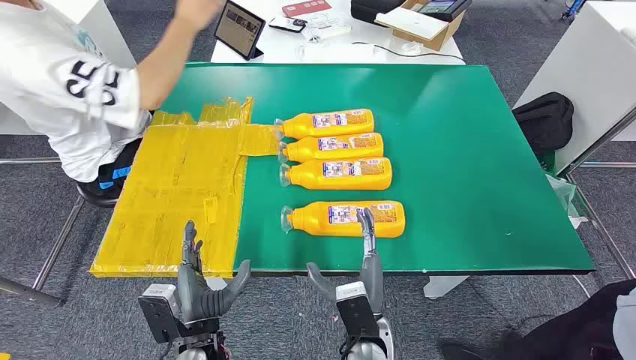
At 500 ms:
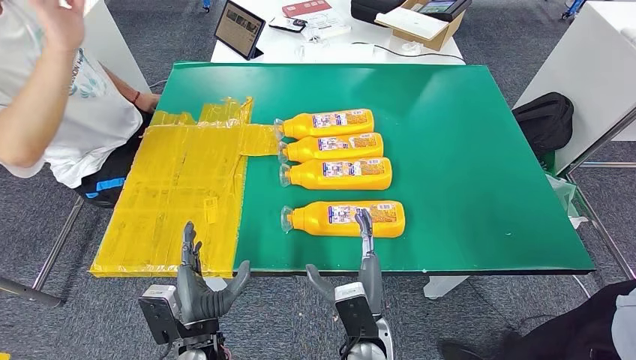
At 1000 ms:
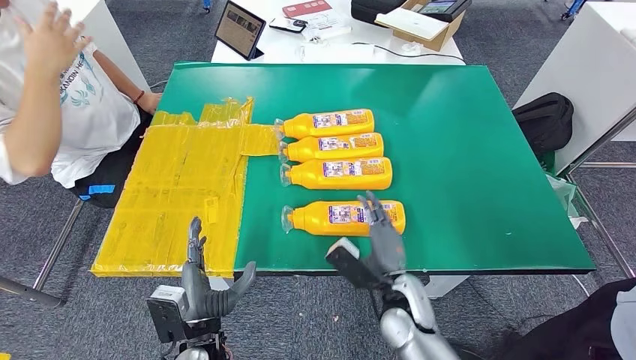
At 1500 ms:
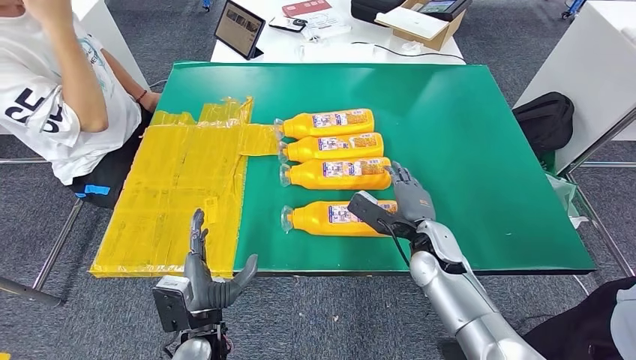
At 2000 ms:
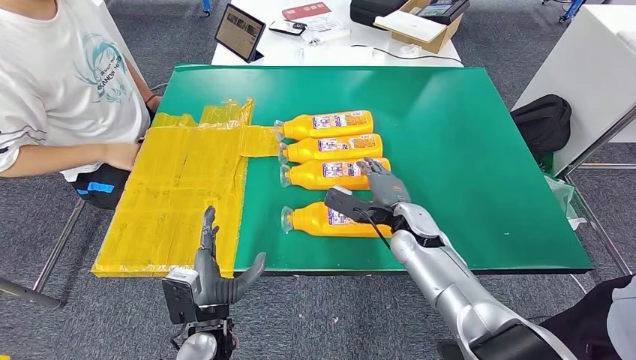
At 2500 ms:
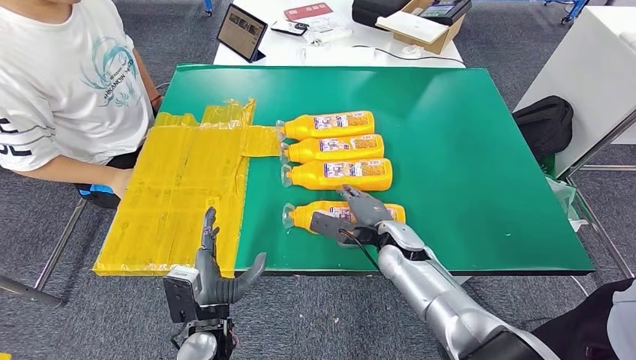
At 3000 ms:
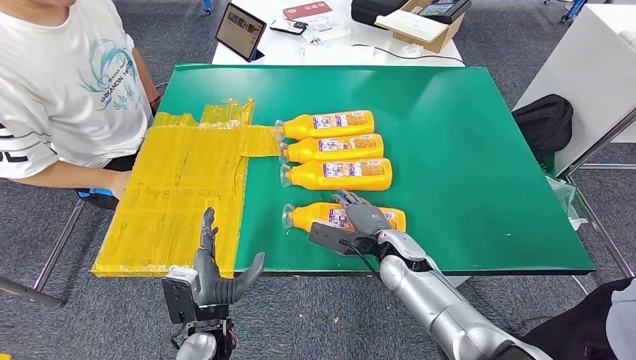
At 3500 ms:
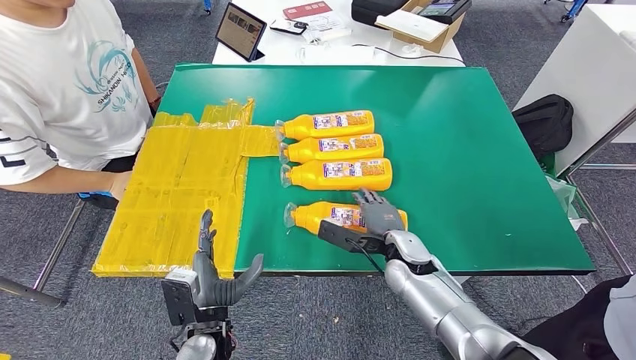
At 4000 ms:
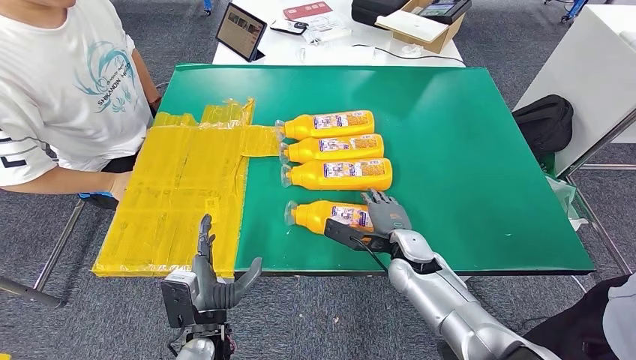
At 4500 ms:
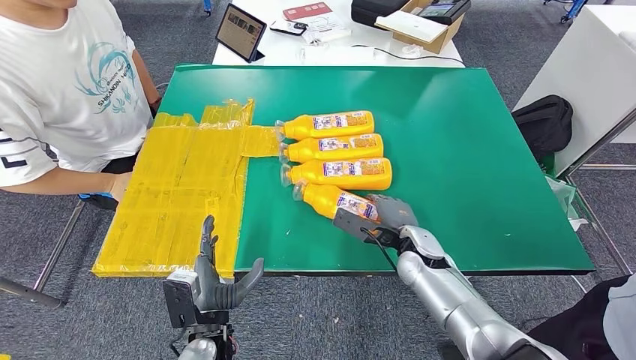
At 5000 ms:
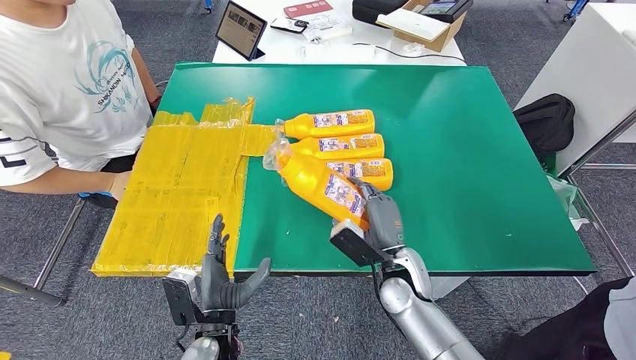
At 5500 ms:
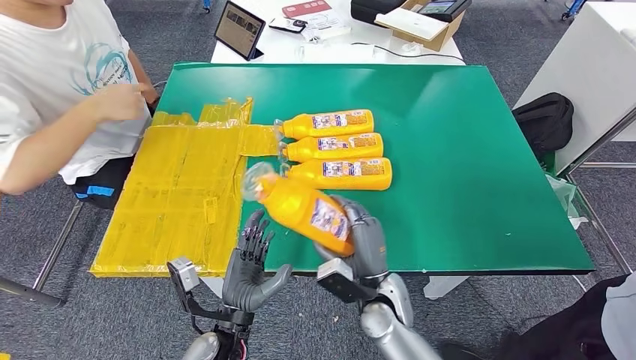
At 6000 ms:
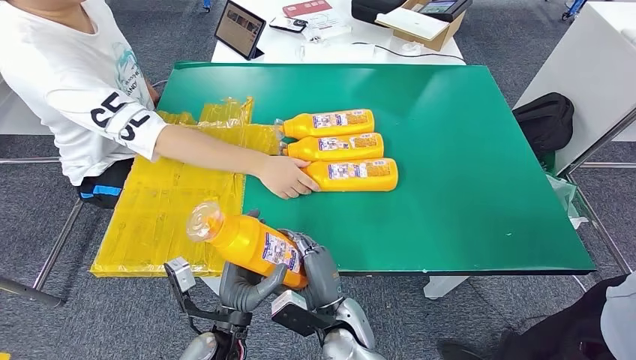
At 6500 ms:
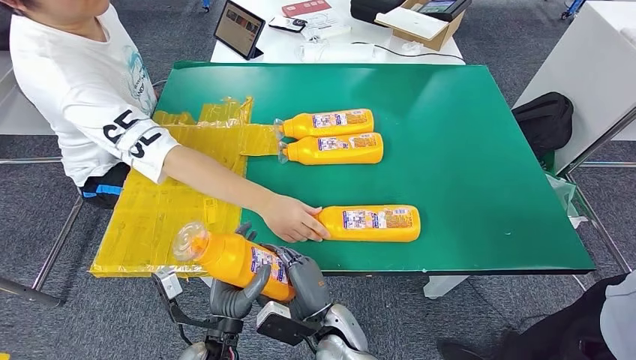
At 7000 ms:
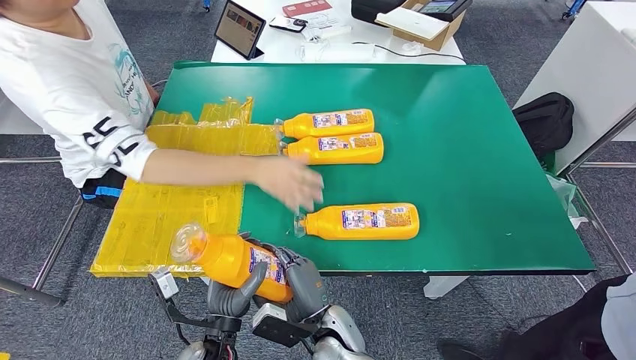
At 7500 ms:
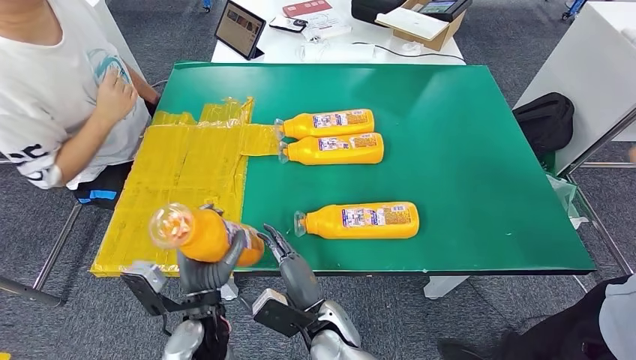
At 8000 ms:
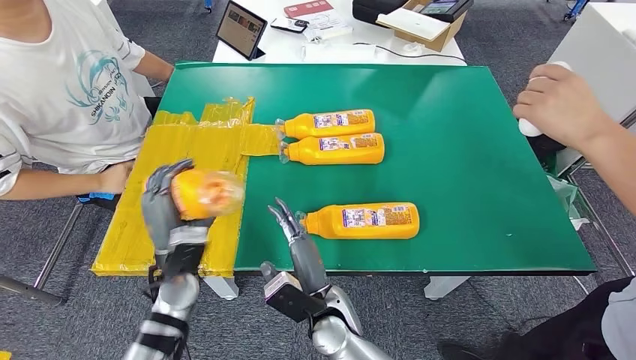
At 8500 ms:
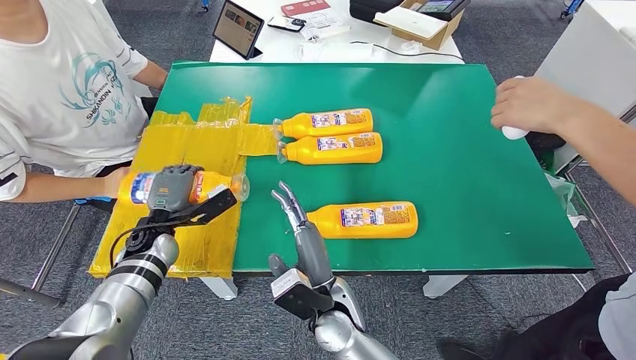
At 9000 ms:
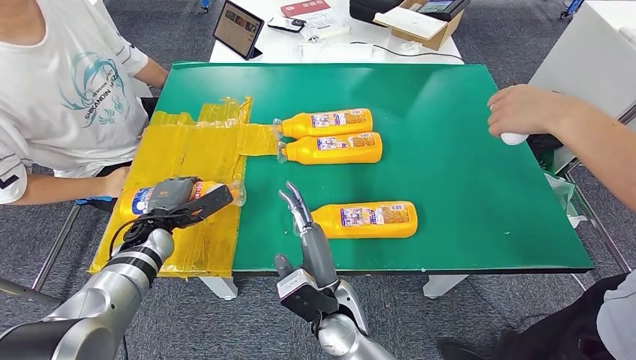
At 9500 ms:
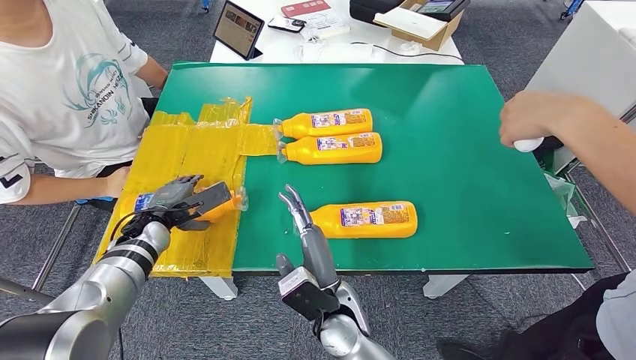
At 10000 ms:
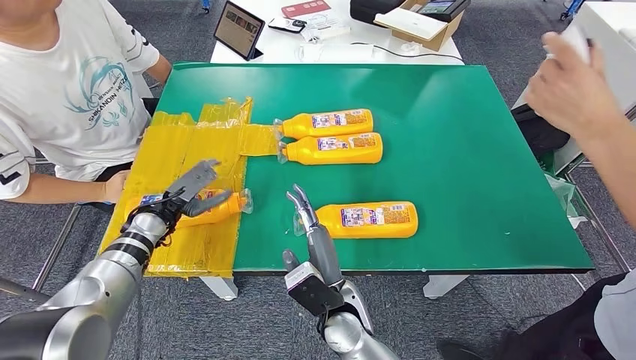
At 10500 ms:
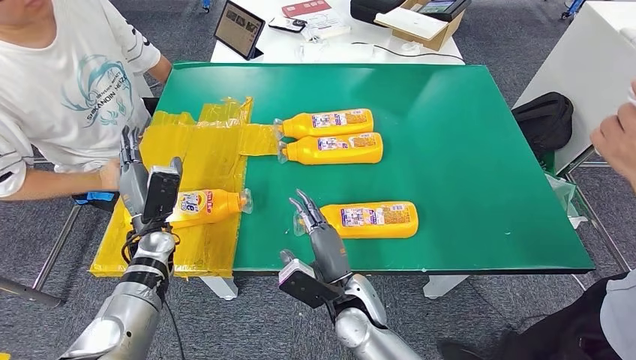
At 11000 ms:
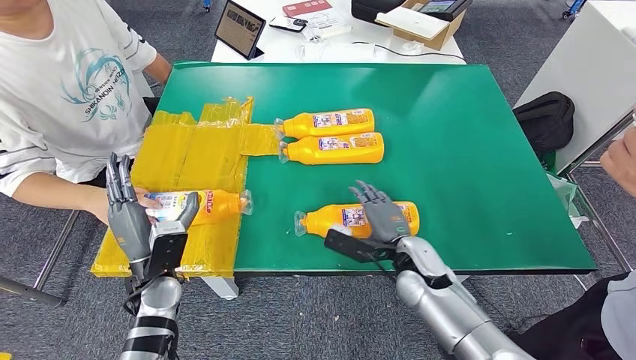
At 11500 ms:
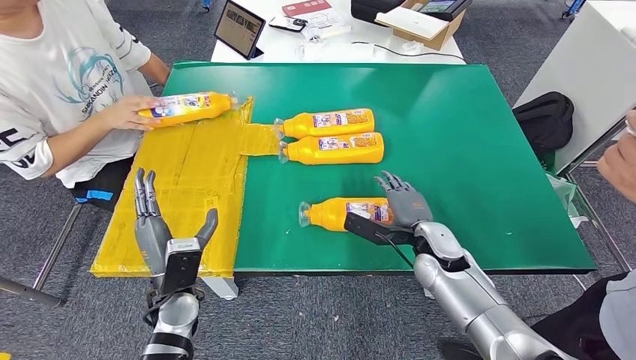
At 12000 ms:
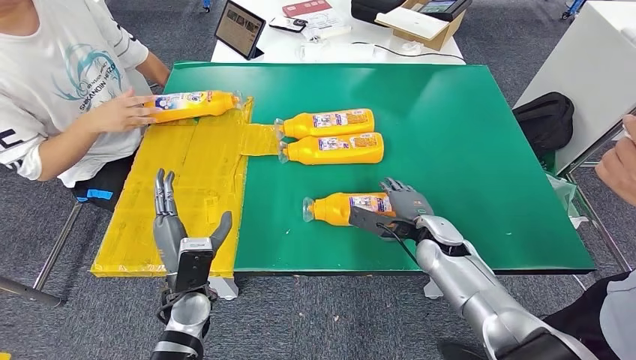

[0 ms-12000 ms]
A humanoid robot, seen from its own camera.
Step, 0 ms to 6000 ms: Take the bottle from the table.
Step, 6500 ms to 9500 ms: Flip the bottle to face forward.
2000 ms to 4000 ms: The hands move only a little.

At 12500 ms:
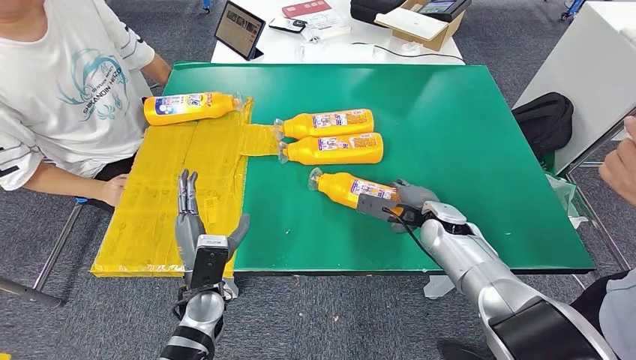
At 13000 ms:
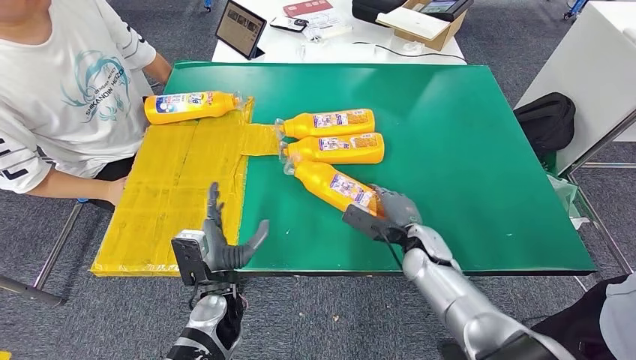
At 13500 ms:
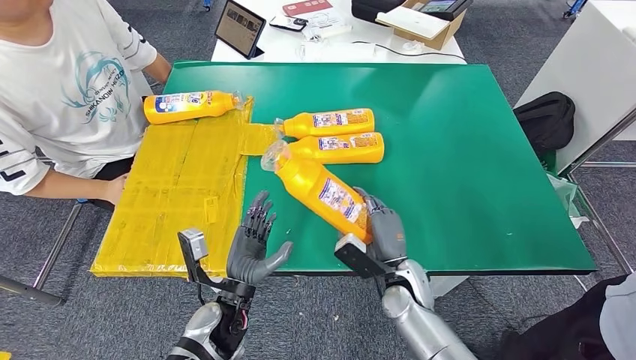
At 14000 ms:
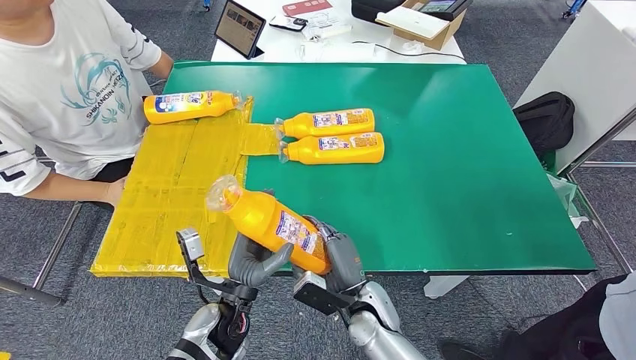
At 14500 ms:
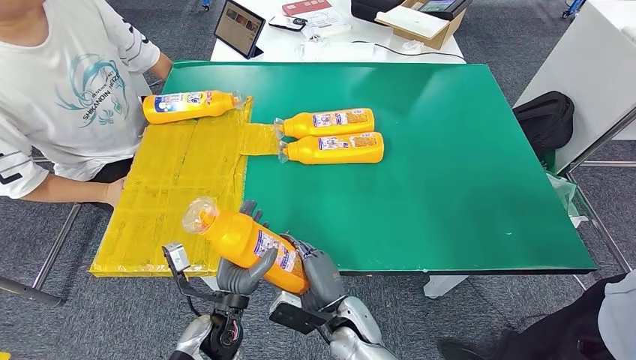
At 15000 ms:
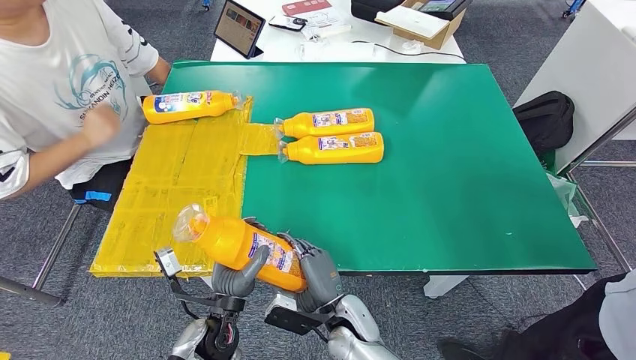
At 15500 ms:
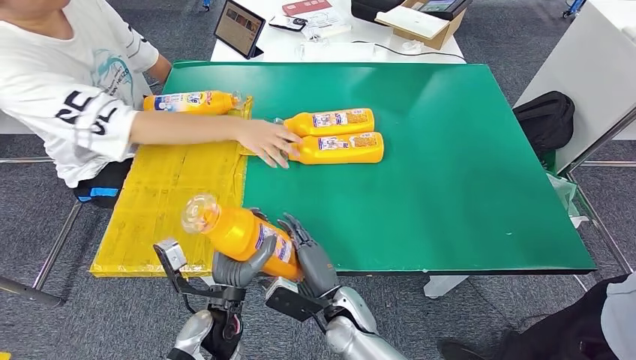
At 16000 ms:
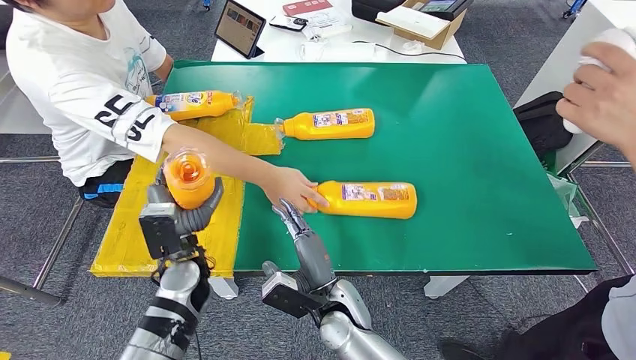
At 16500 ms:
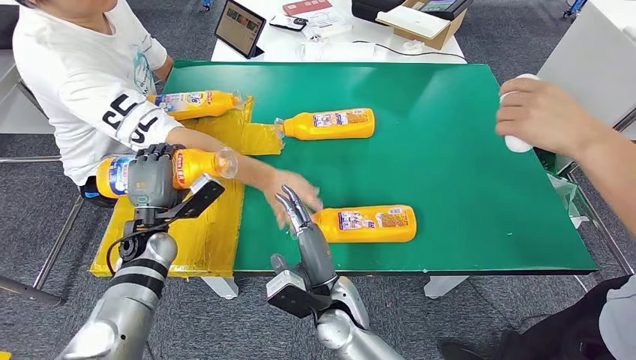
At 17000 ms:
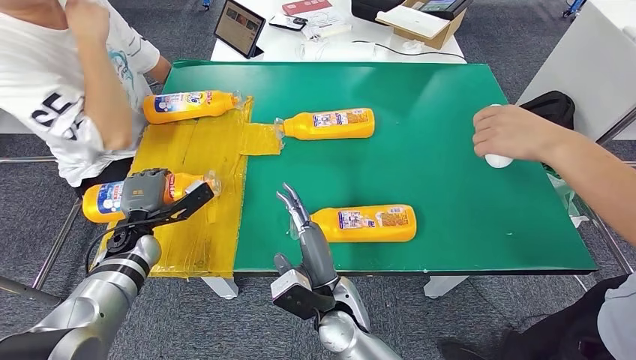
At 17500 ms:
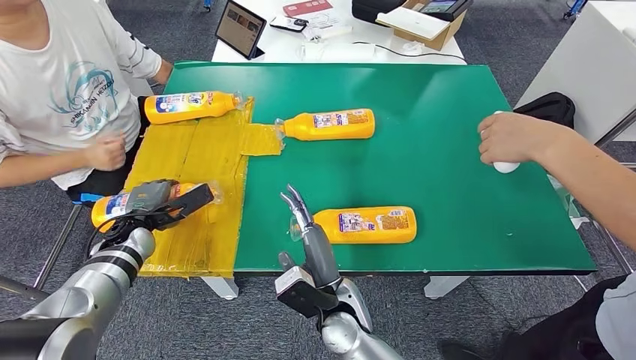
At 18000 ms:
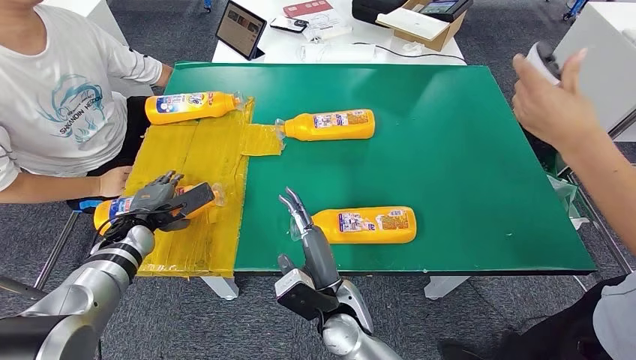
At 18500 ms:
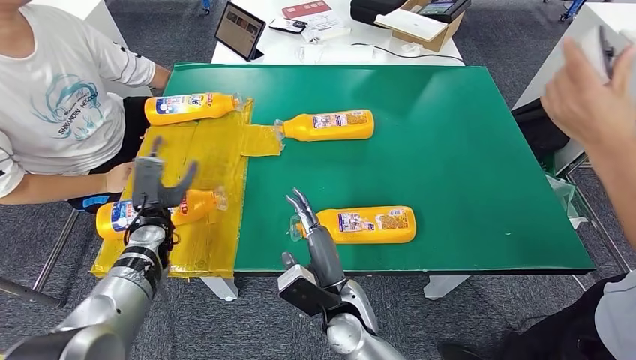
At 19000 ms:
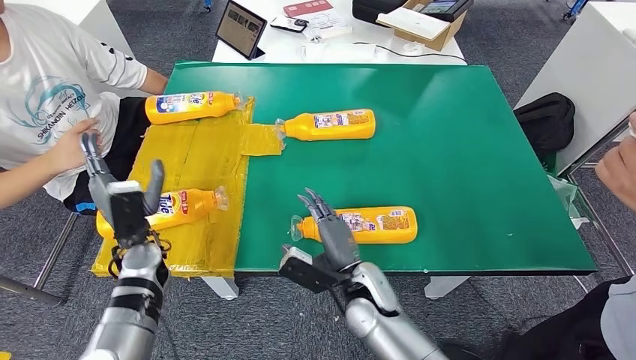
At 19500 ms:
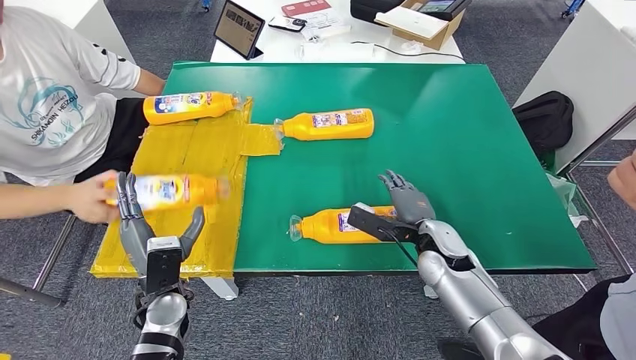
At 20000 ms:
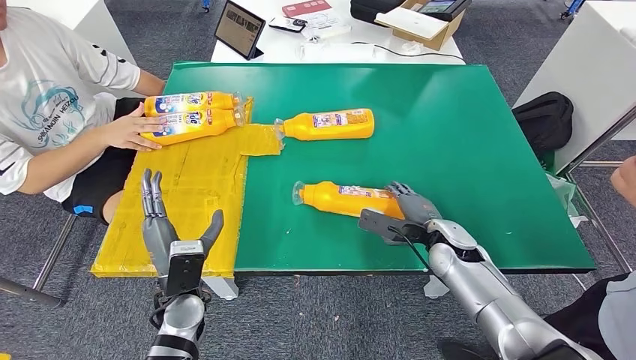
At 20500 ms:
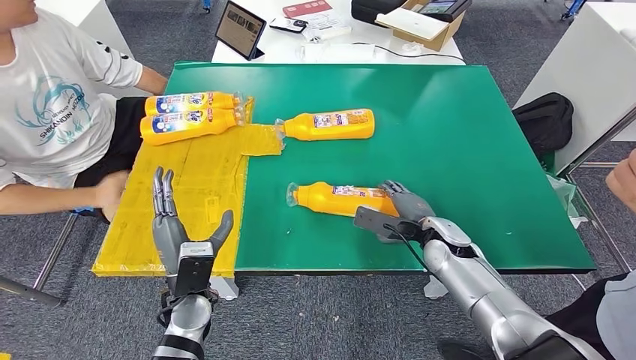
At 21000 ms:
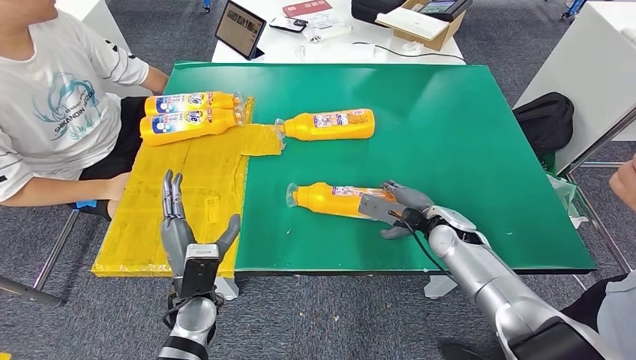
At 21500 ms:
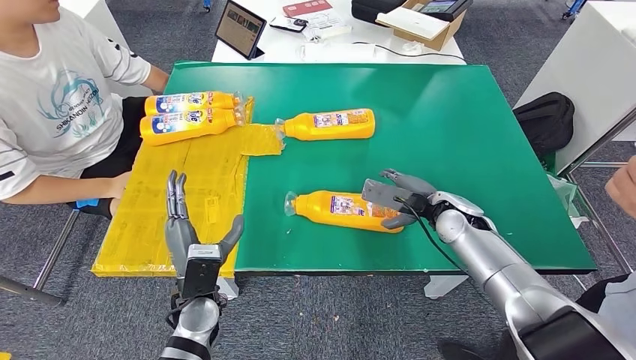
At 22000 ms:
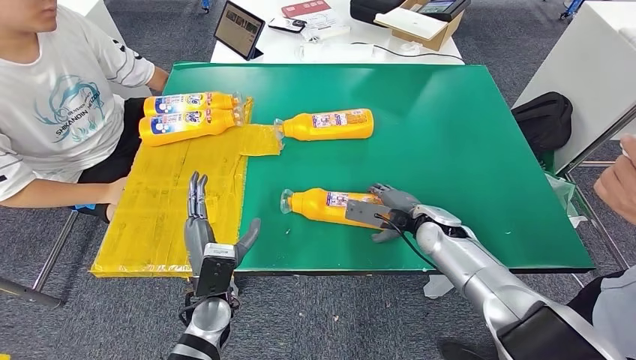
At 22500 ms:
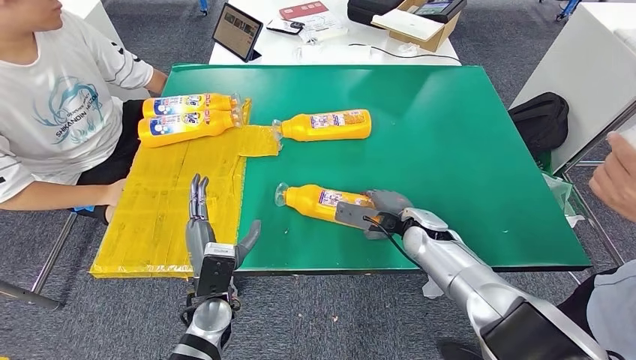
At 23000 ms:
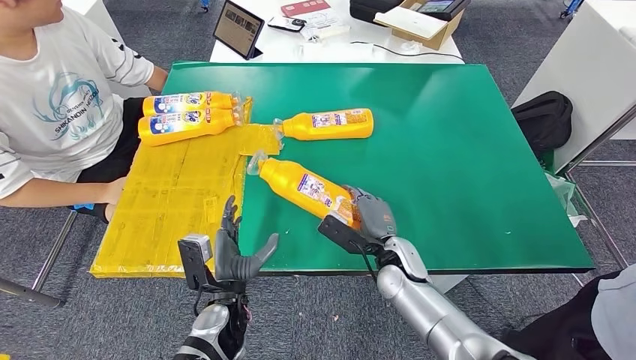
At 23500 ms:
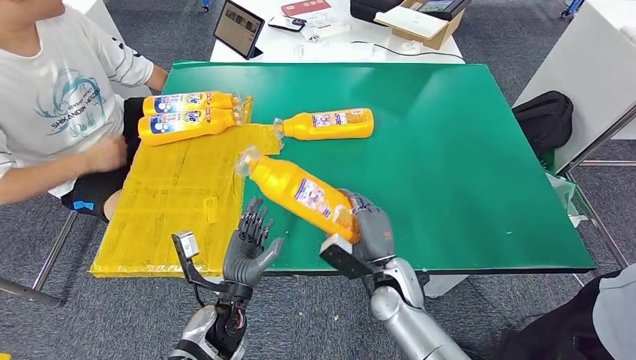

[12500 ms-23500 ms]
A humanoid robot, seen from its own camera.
Step, 14000 ms to 17500 ms: Flip the bottle to face forward.
